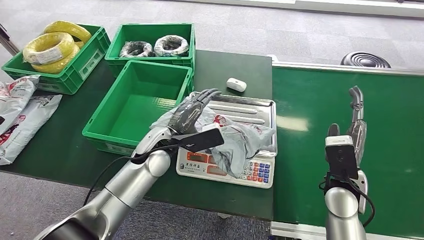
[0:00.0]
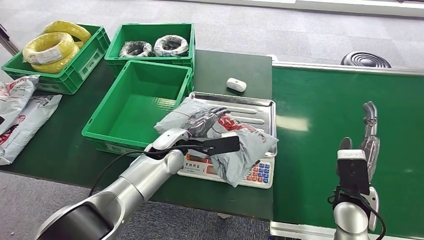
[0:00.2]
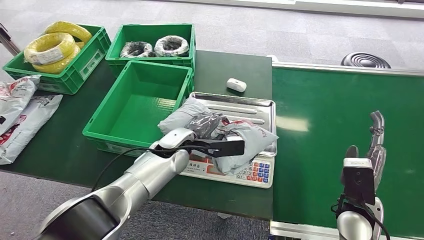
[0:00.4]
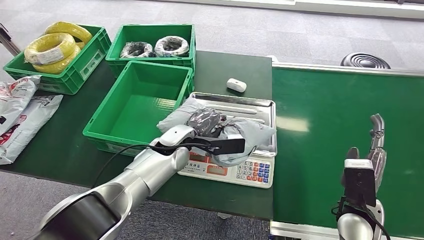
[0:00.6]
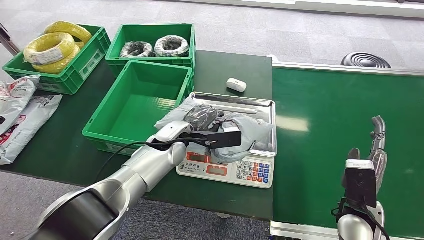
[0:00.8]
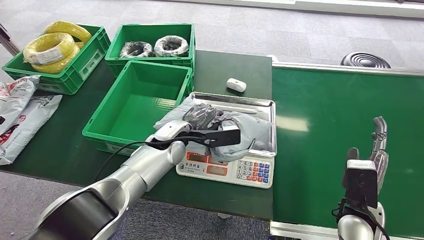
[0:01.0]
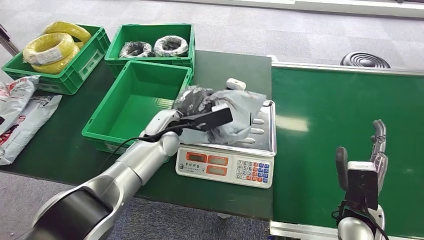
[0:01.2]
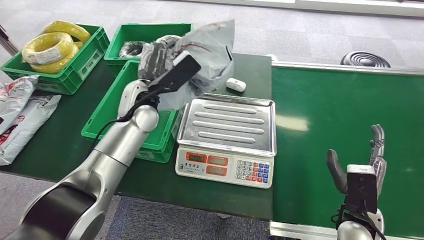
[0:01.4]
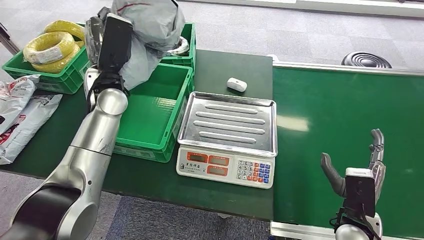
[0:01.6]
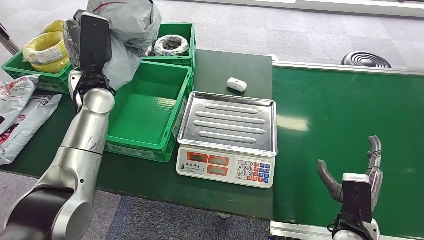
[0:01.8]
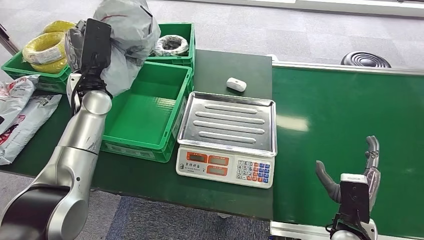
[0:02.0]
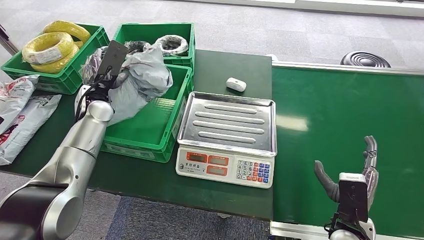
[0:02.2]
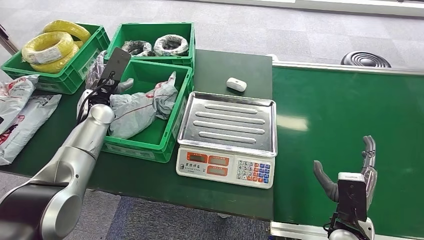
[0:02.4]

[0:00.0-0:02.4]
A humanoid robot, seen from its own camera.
Step, 0:00.0 to 0:01.4: Pick up the package from the inbound machine.
Step, 0:01.8 to 0:02.4: Place the package into the parcel locker.
0:00.0 to 0:01.2: The right hand heads backward, covering roughly 5 cm.
